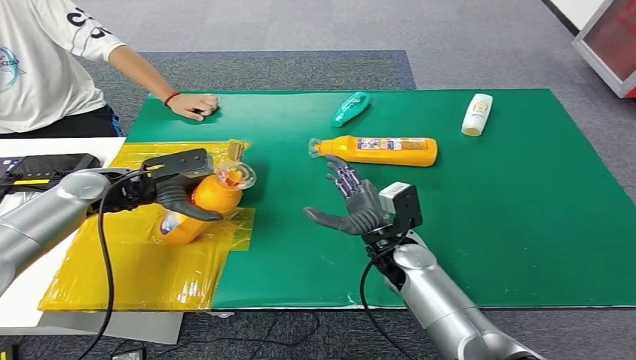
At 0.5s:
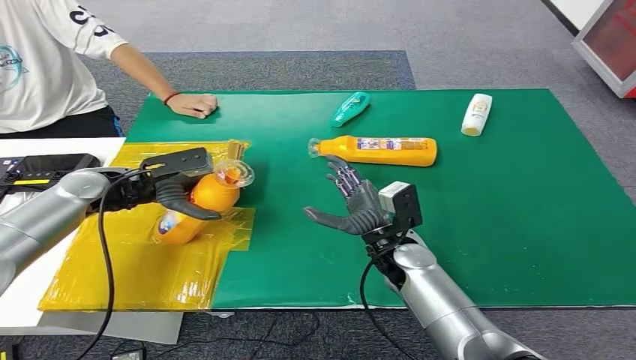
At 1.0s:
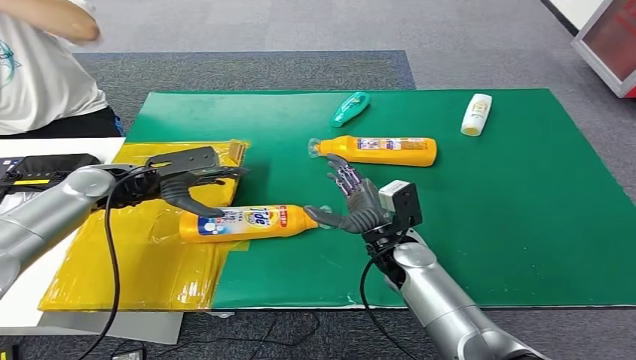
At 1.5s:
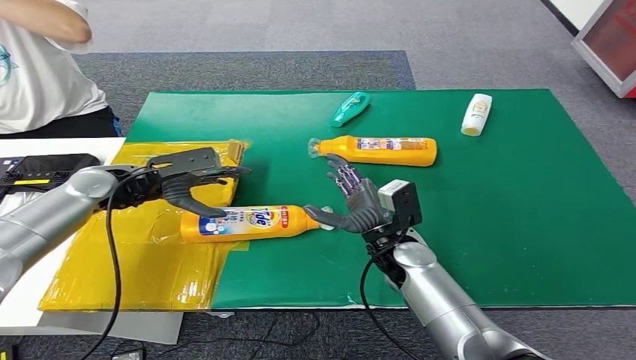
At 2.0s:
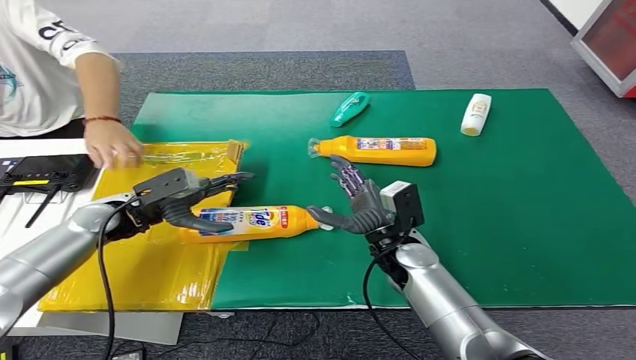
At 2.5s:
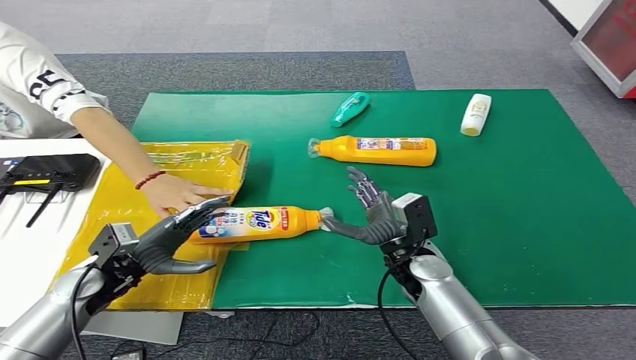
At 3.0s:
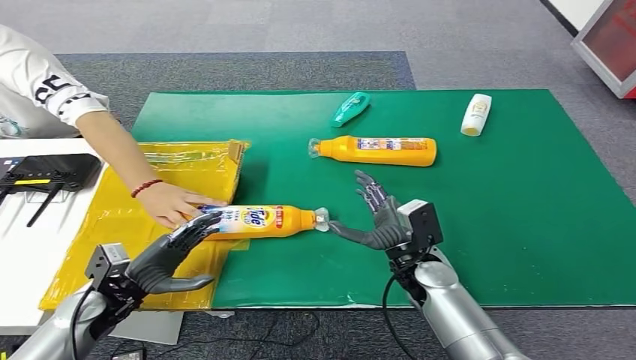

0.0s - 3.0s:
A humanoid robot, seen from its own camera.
Step, 0.0s - 3.0s: Turn the bottle to the front side.
0.0s - 1.5s: The hands stay close to where they were, moving slightly.

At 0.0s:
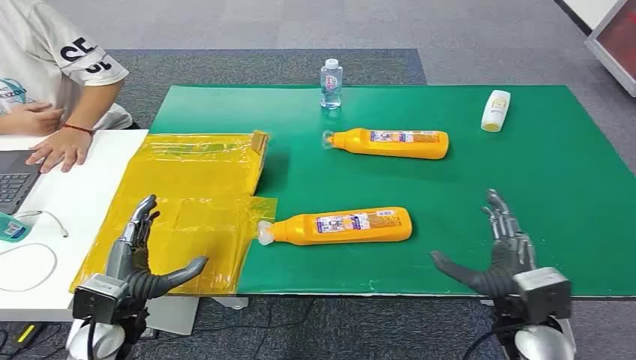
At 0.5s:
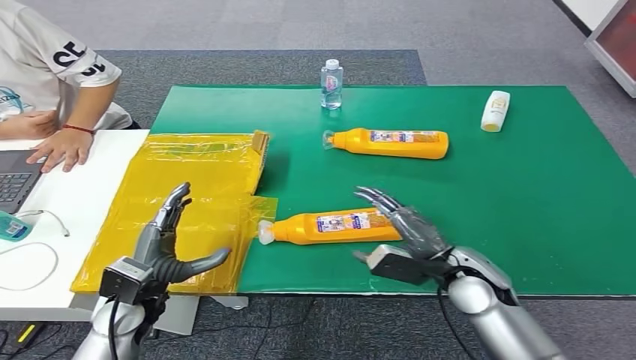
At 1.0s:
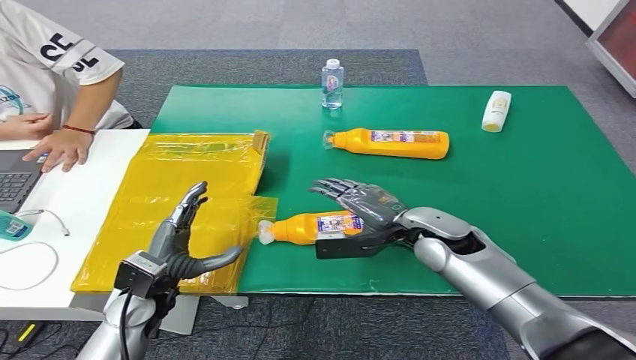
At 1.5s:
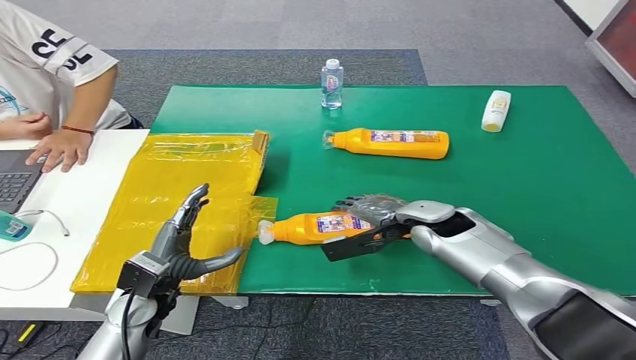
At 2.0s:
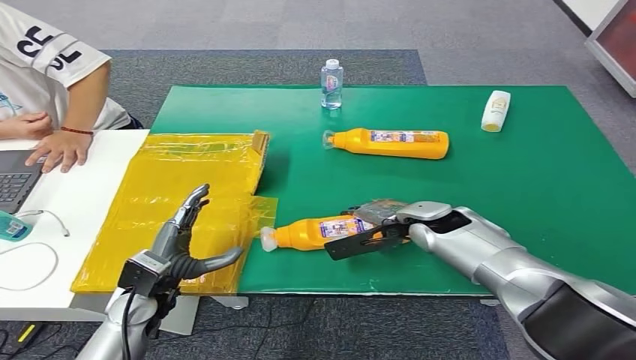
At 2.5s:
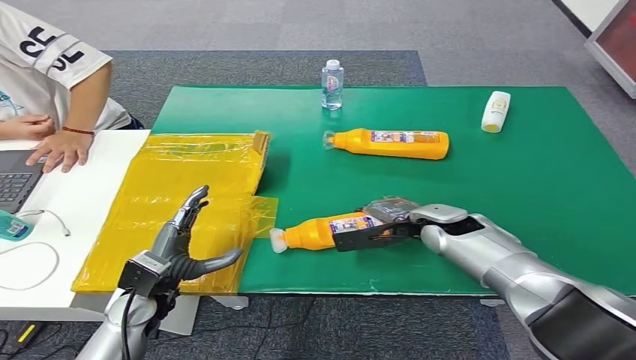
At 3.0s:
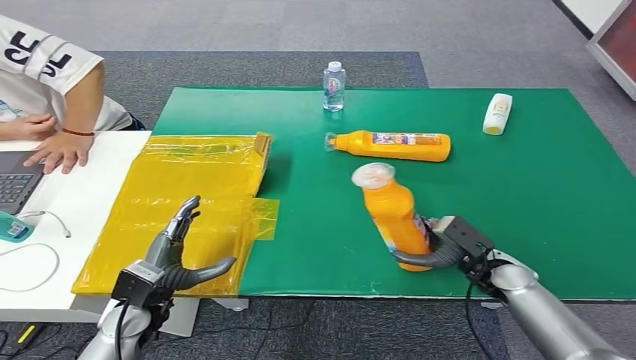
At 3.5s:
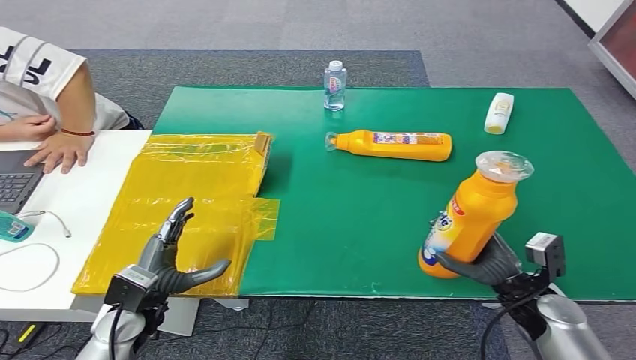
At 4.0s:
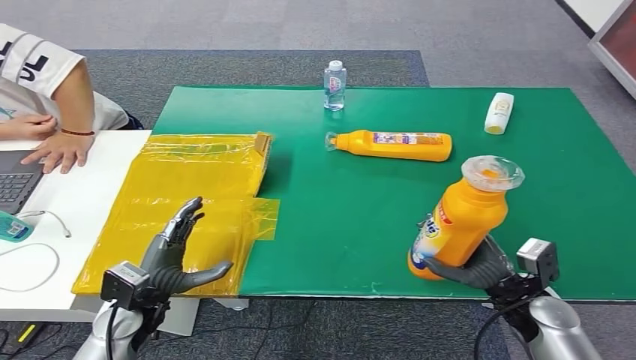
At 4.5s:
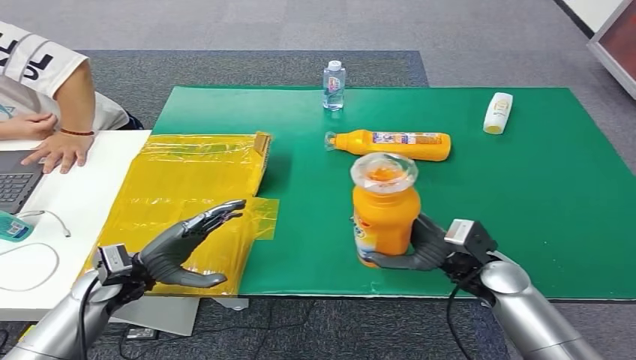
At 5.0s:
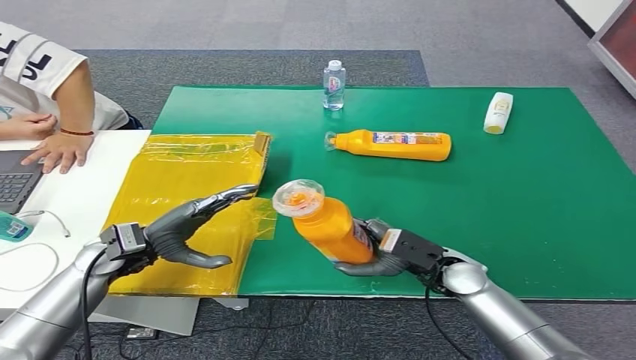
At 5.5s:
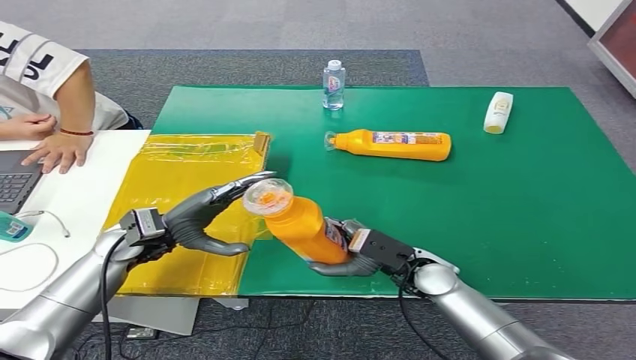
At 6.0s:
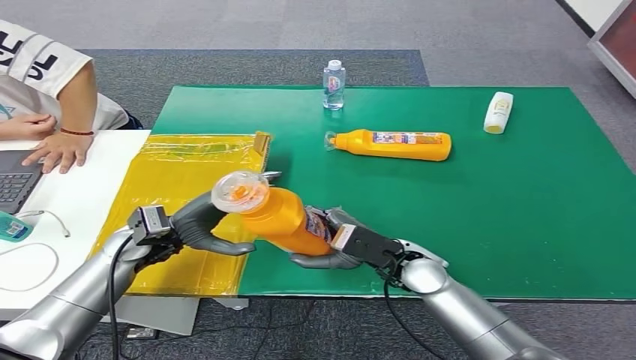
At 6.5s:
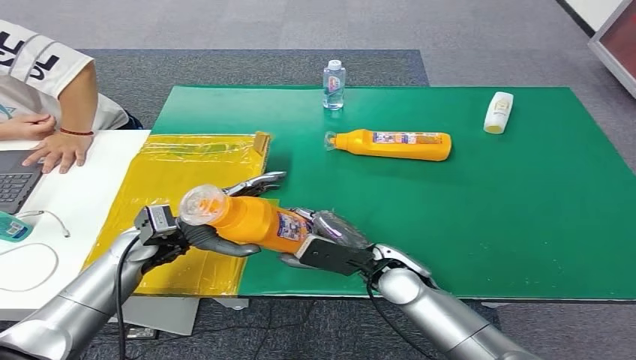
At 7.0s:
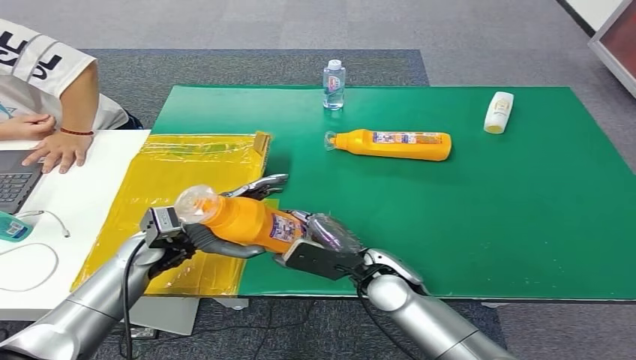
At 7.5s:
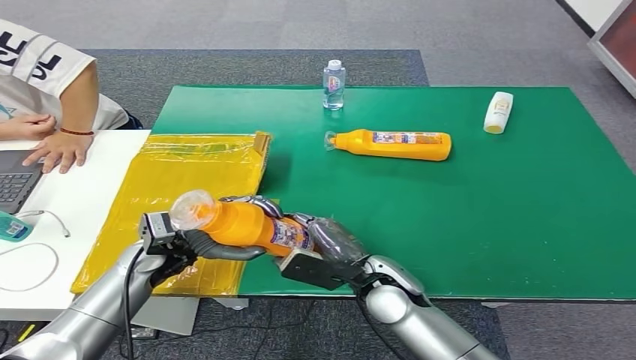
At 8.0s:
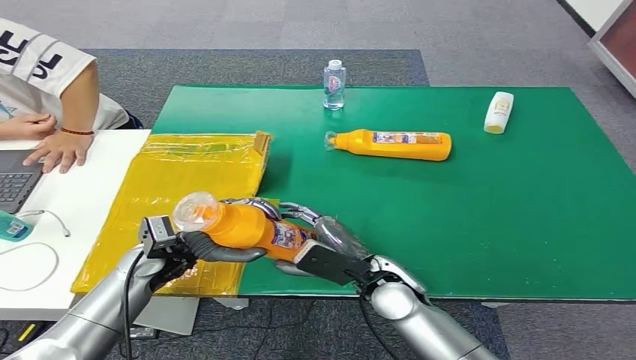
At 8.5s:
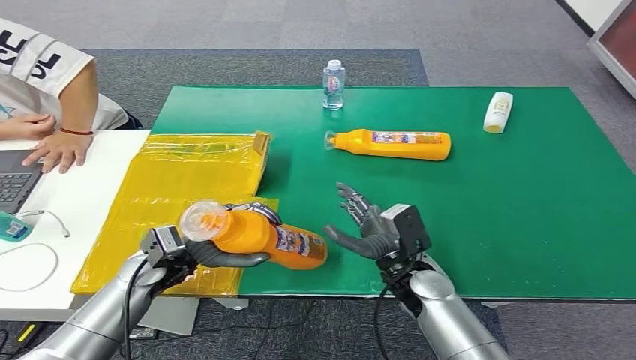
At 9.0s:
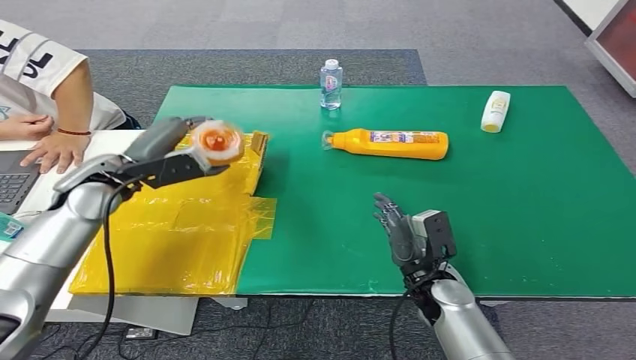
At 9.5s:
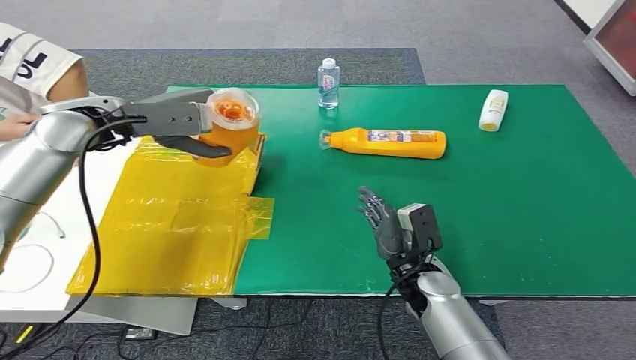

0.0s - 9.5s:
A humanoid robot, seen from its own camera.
Step, 0.0s - 4.5s: Pick up the bottle from the table.
5.5s - 7.5s: The right hand is displaced to the left by about 5 cm.

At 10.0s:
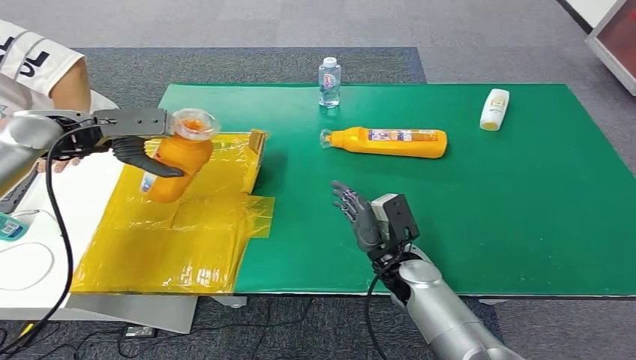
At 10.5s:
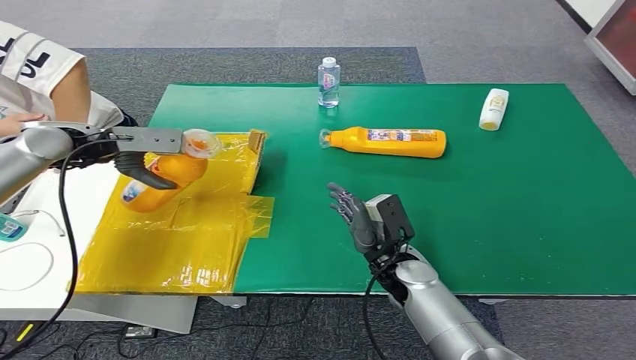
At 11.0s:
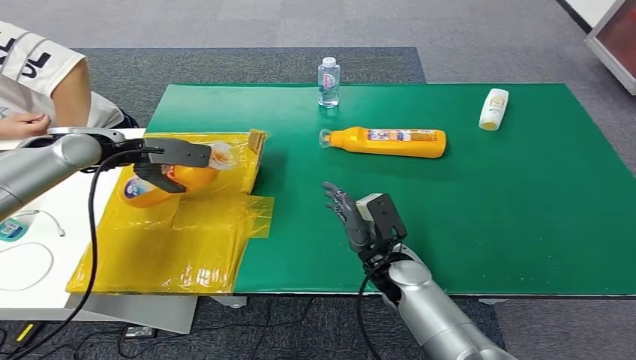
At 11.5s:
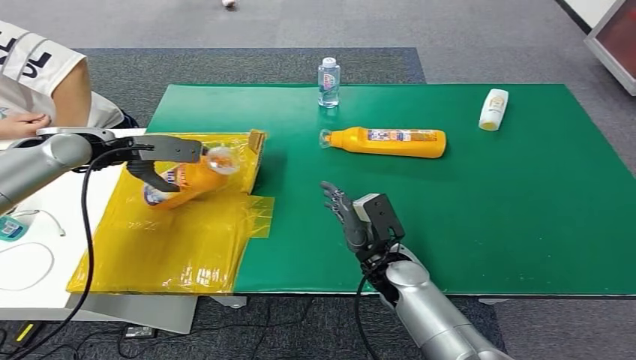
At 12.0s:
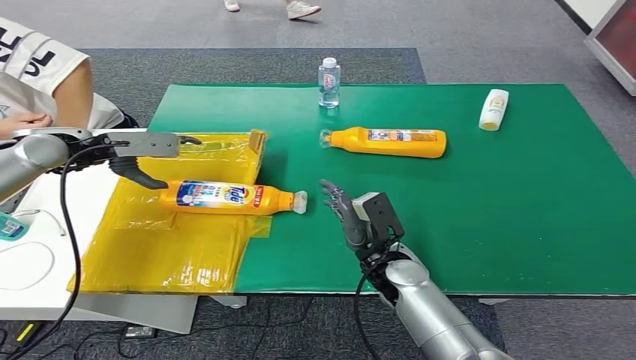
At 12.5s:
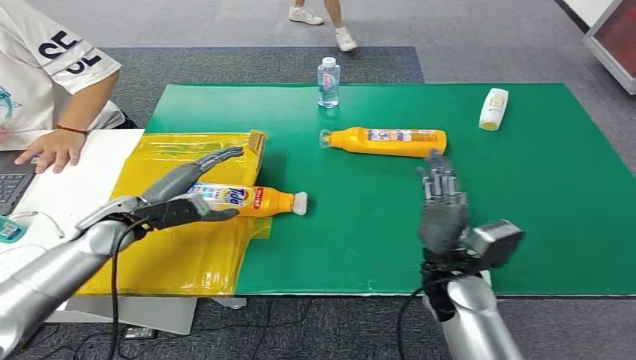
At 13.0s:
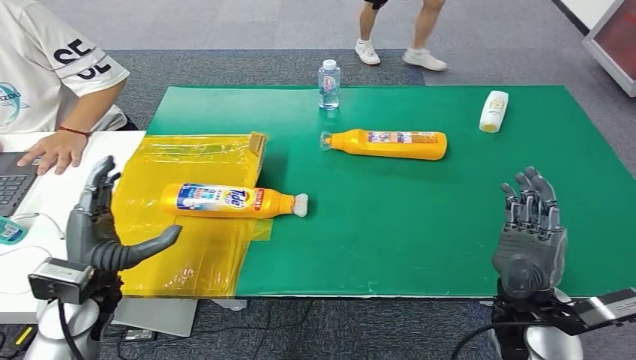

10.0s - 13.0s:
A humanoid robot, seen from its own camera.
Step, 10.0s - 13.0s: Turn the bottle to the front side.
